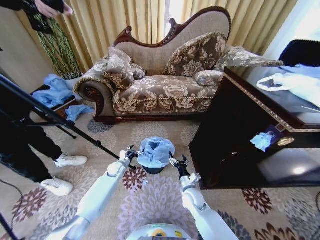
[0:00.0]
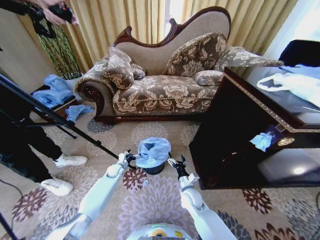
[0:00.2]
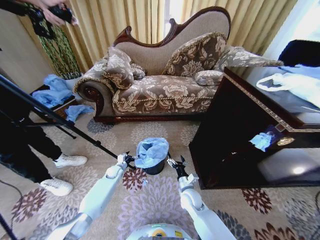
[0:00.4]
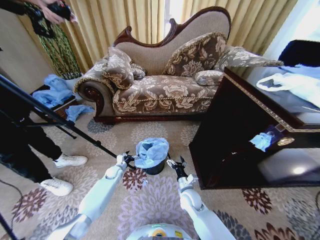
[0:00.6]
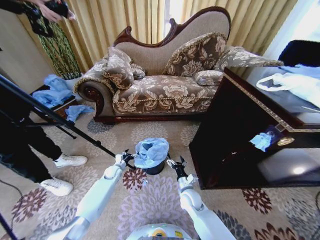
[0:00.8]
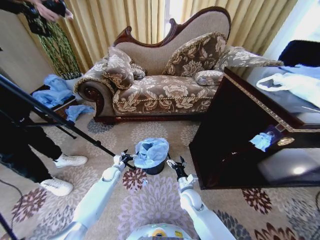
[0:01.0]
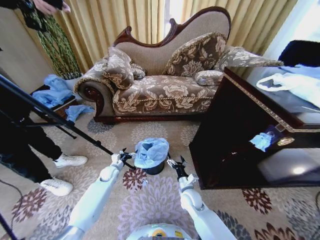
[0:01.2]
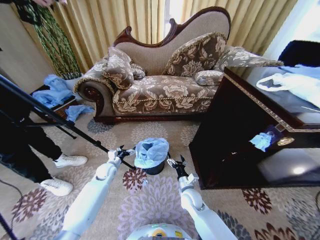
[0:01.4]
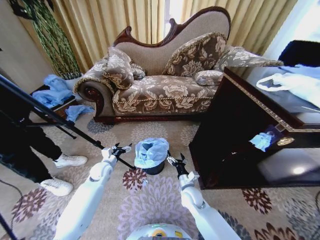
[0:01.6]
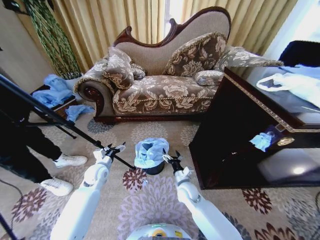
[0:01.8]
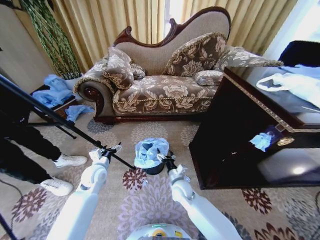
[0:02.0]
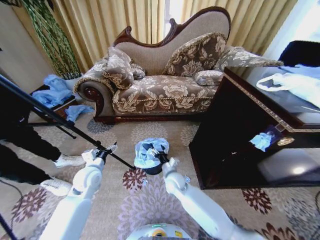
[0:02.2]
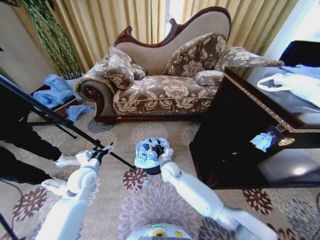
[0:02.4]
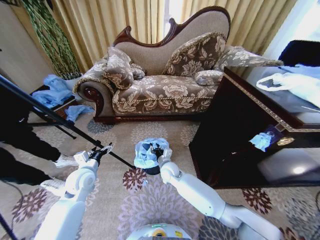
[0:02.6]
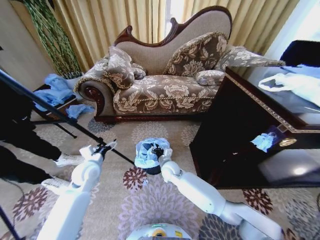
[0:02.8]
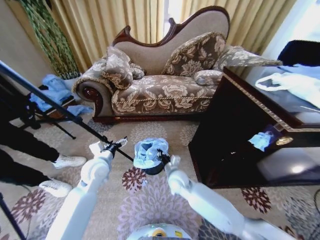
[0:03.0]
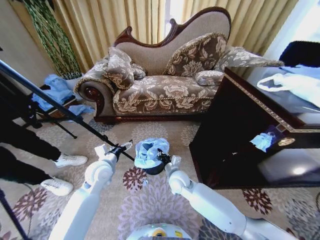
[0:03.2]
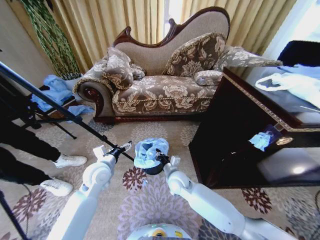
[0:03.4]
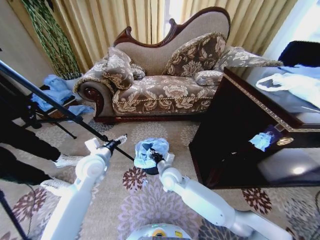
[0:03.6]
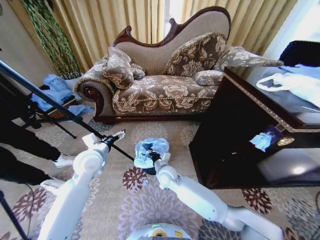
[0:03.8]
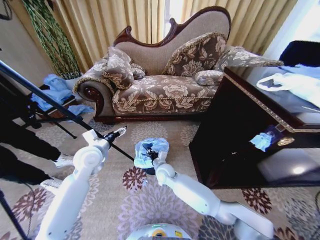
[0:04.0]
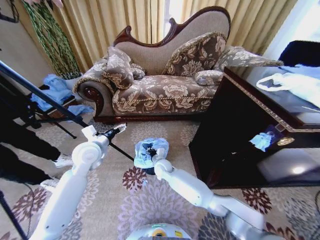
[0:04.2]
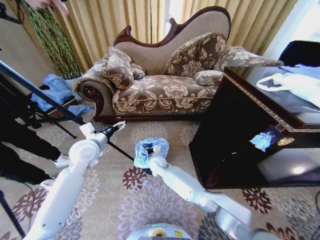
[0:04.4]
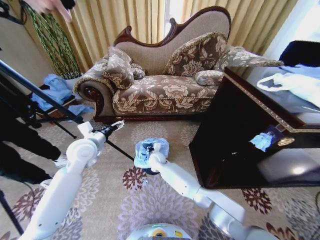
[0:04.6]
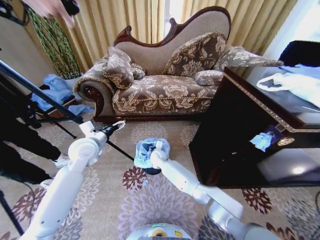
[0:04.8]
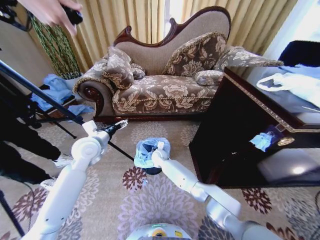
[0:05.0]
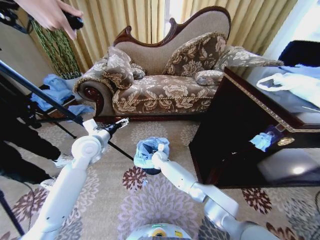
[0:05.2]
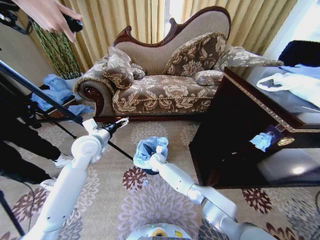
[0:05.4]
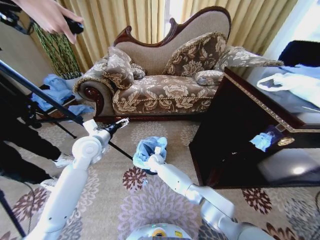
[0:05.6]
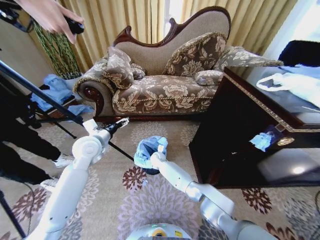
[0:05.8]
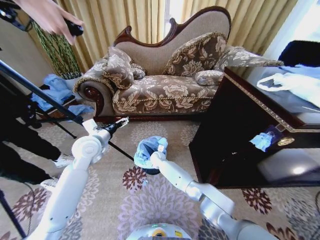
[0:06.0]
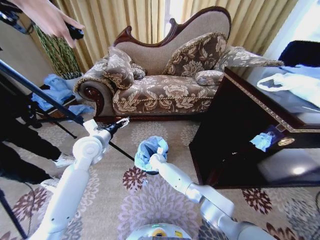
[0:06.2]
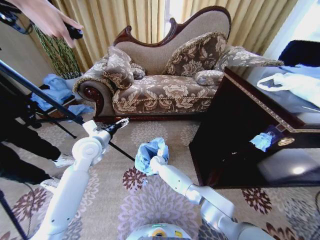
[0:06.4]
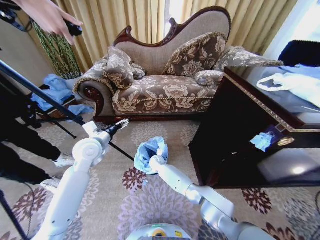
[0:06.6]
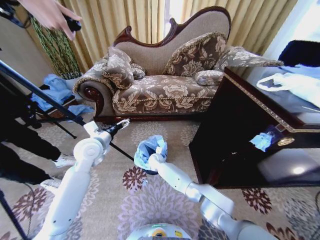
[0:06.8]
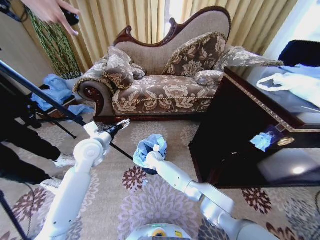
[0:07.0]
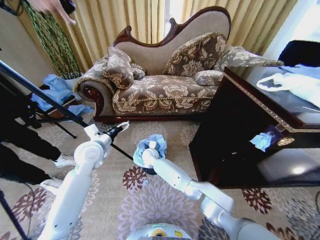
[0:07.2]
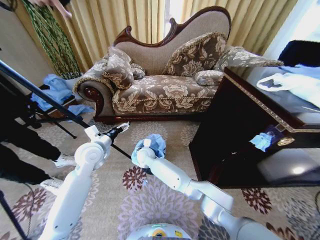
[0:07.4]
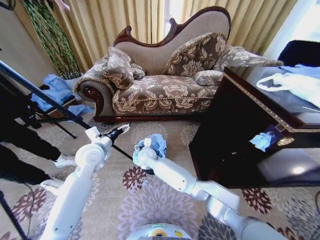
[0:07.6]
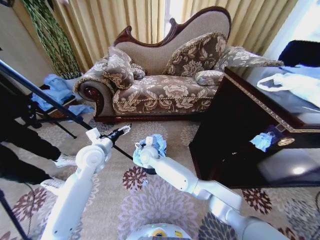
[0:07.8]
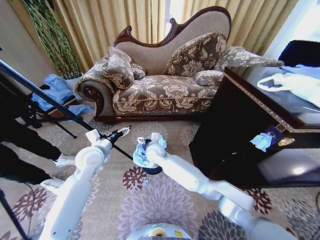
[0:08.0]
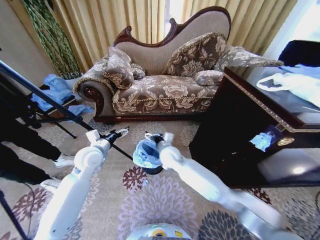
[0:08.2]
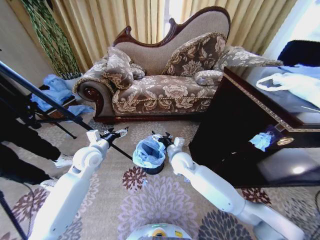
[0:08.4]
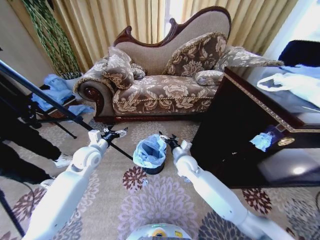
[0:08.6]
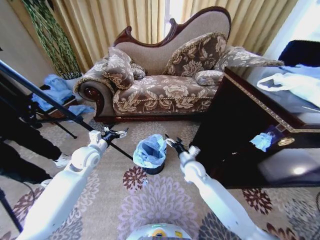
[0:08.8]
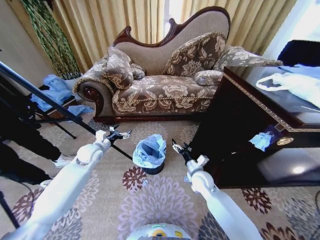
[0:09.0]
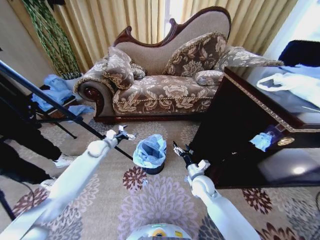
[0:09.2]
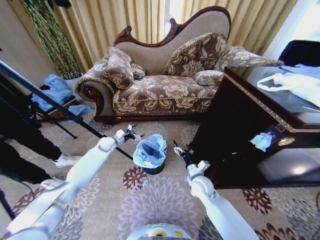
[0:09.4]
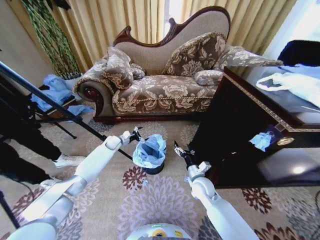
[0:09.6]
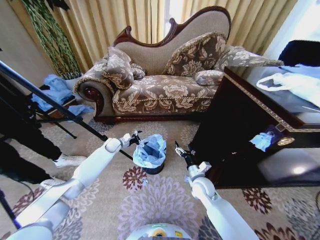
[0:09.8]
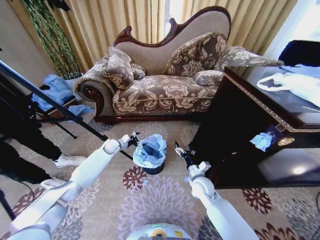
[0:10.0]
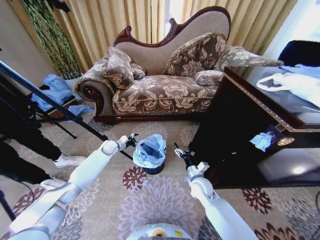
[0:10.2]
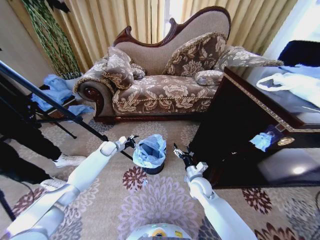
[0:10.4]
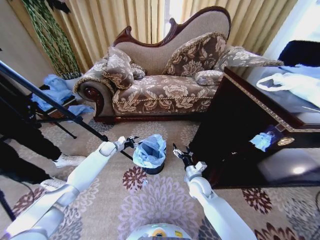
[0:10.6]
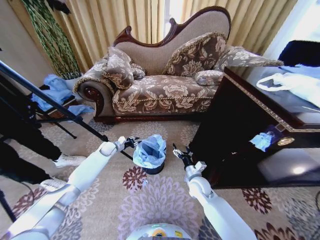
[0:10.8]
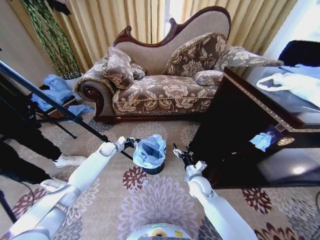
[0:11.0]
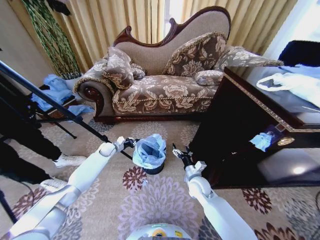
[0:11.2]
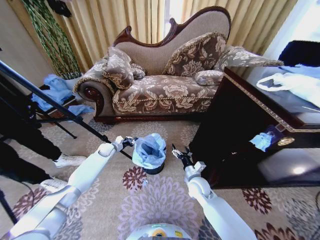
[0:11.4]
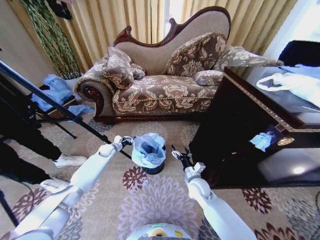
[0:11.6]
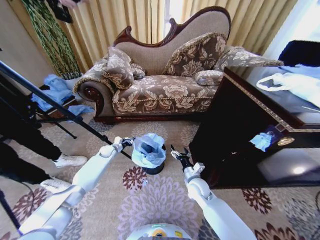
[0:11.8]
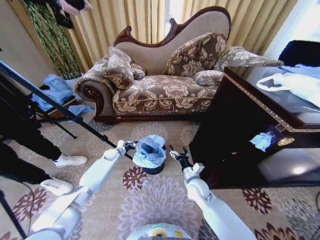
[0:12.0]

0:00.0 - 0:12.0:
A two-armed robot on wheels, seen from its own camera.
Task of the whole recording: Place a garbage bag over the trash bin.
0:00.0 - 0:01.6: The left gripper moves upward and backward, roughly 10 cm.
0:01.6 - 0:03.0: The left gripper heads upward and backward, covering about 15 cm. The right gripper heads to the left and upward, covering some 10 cm, and closes up.
0:03.0 - 0:04.4: The left gripper goes approximately 10 cm upward; the right gripper goes some 15 cm to the left and forward.
0:04.4 - 0:06.0: The right gripper goes about 5 cm forward.
0:06.0 - 0:07.6: The right gripper shifts approximately 15 cm upward, backward and to the left, and opens its fingers.
0:07.6 - 0:09.0: The right gripper heads to the right, covering roughly 25 cm. The left gripper shifts some 10 cm downward, forward and to the left.
0:09.0 - 0:10.4: The left gripper is displaced forward and downward by some 15 cm.
0:10.4 - 0:12.0: The left gripper moves downward, approximately 10 cm, and closes its fingers.

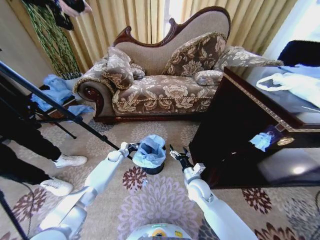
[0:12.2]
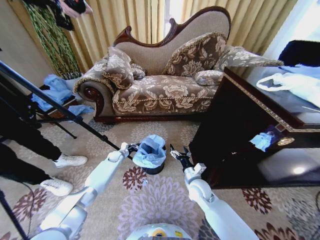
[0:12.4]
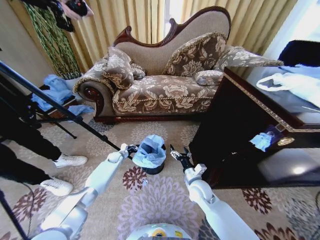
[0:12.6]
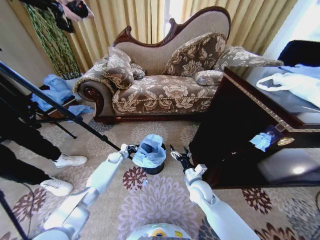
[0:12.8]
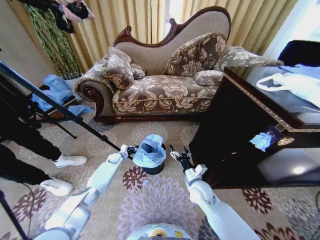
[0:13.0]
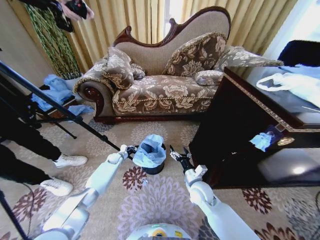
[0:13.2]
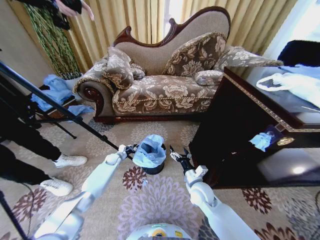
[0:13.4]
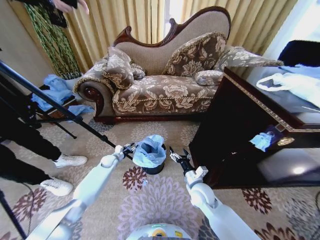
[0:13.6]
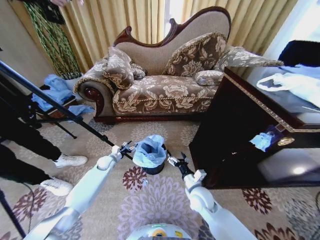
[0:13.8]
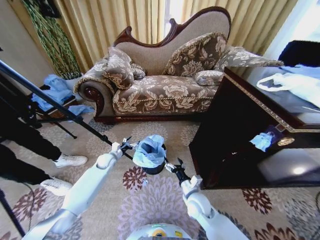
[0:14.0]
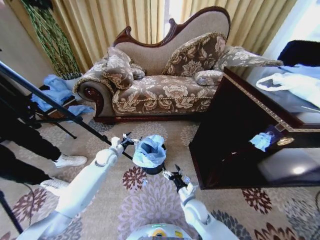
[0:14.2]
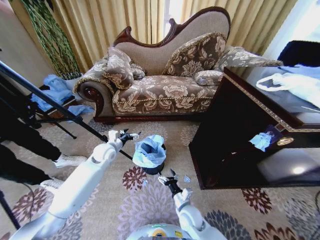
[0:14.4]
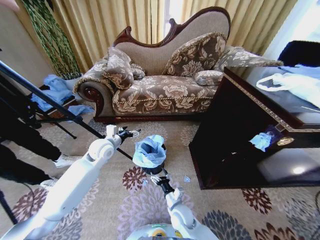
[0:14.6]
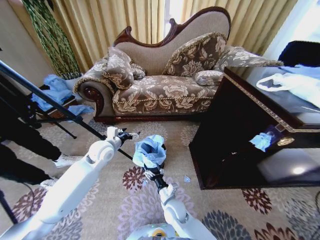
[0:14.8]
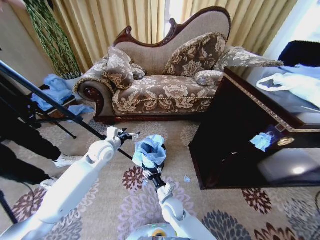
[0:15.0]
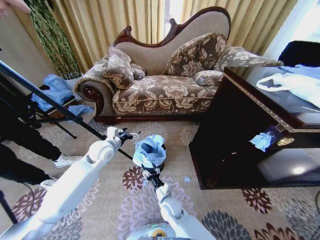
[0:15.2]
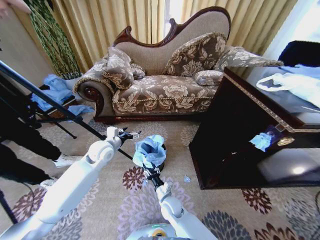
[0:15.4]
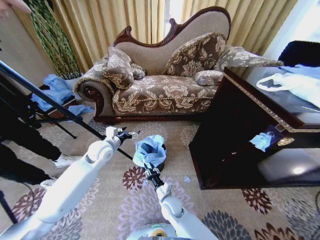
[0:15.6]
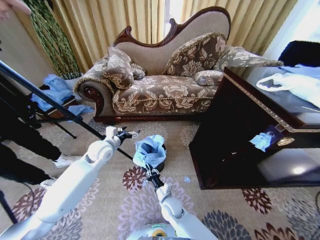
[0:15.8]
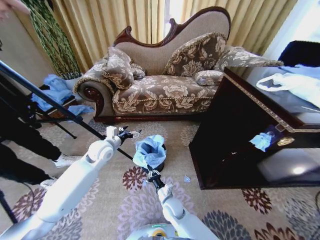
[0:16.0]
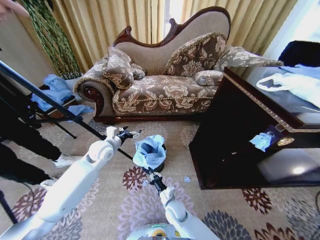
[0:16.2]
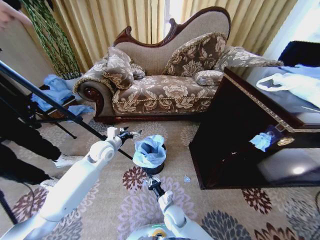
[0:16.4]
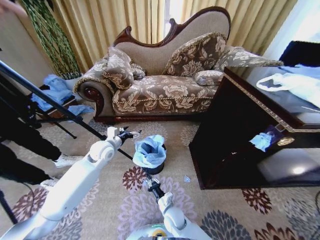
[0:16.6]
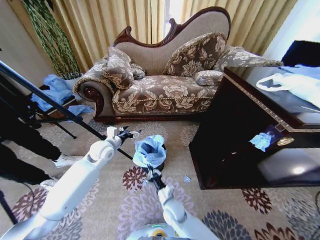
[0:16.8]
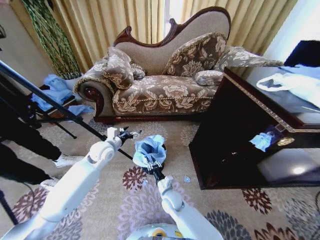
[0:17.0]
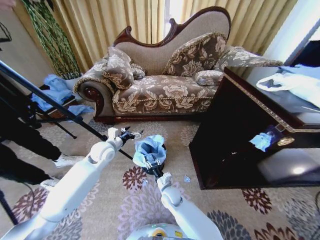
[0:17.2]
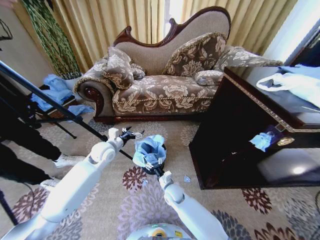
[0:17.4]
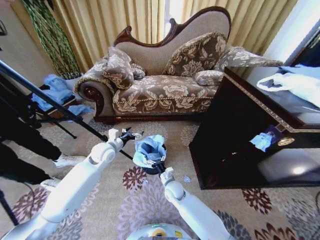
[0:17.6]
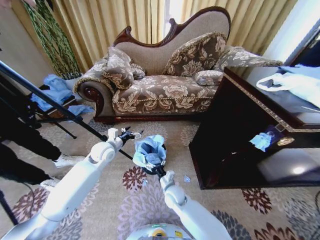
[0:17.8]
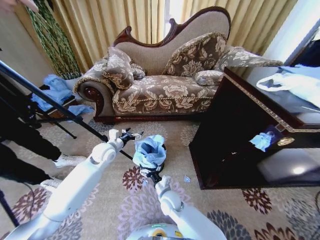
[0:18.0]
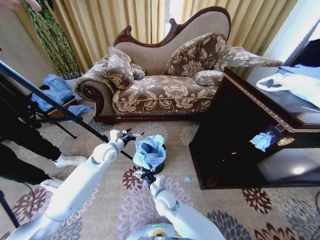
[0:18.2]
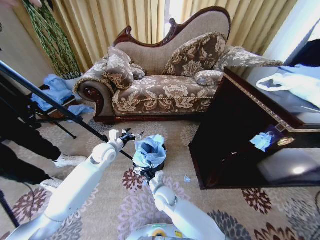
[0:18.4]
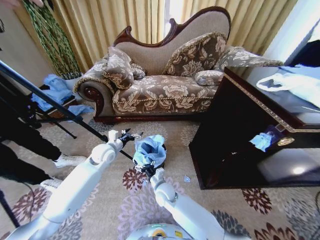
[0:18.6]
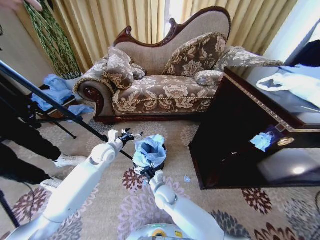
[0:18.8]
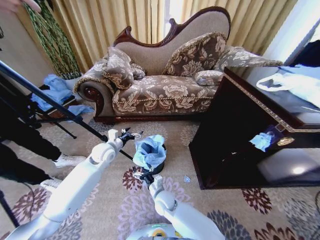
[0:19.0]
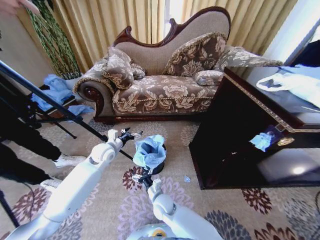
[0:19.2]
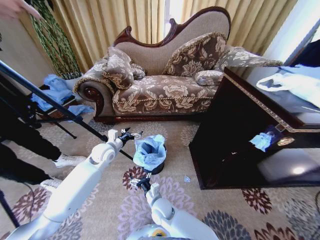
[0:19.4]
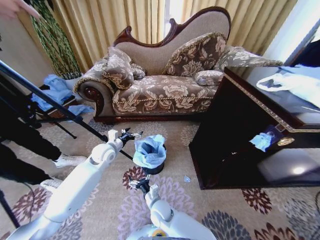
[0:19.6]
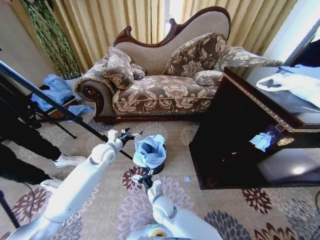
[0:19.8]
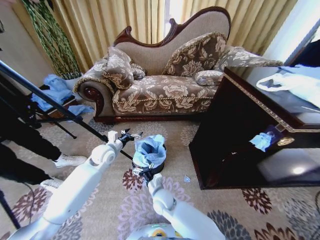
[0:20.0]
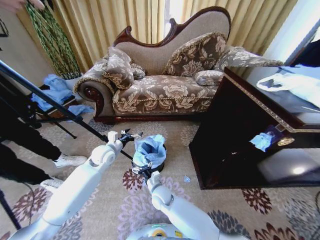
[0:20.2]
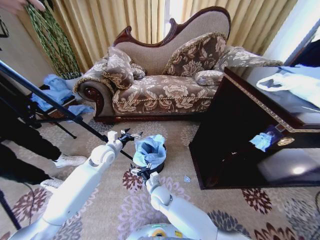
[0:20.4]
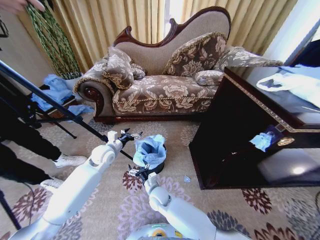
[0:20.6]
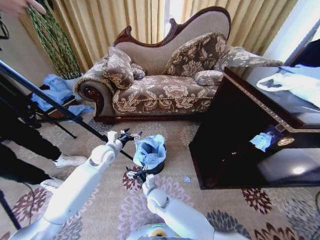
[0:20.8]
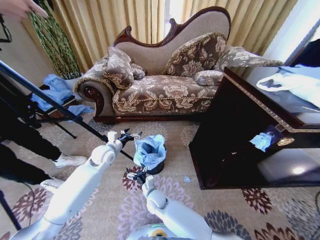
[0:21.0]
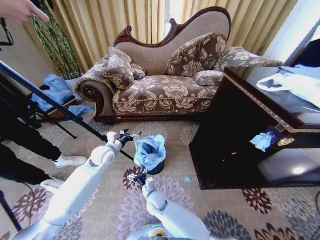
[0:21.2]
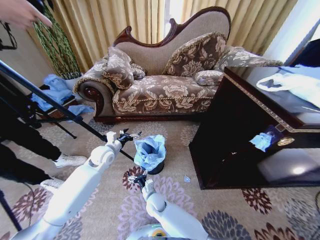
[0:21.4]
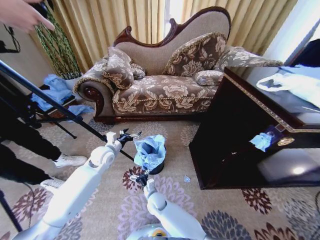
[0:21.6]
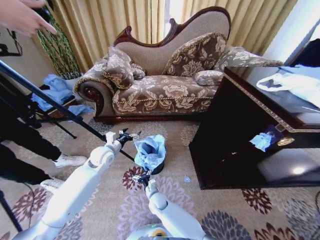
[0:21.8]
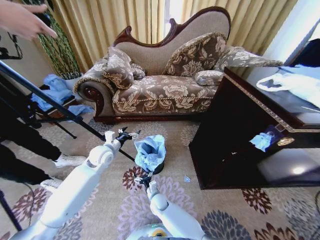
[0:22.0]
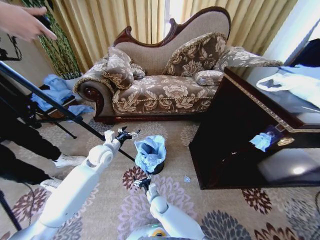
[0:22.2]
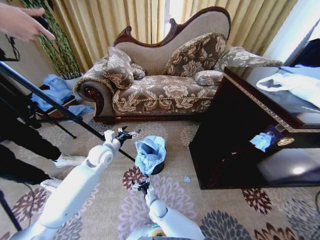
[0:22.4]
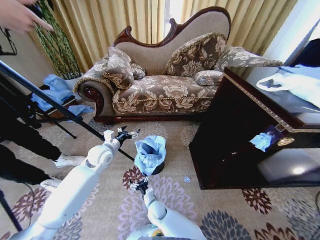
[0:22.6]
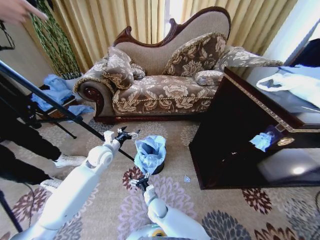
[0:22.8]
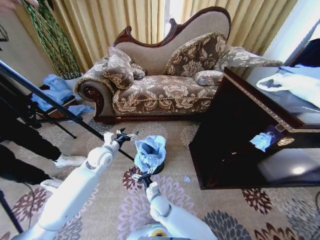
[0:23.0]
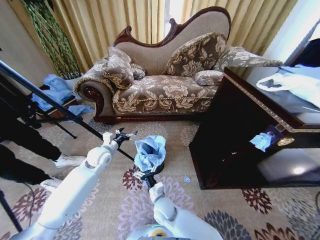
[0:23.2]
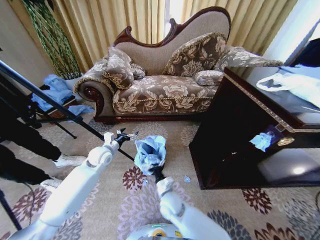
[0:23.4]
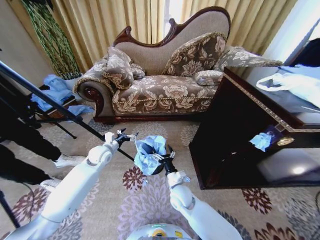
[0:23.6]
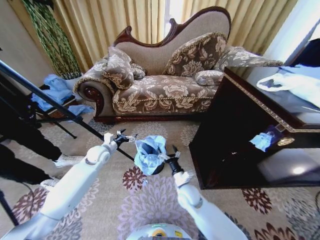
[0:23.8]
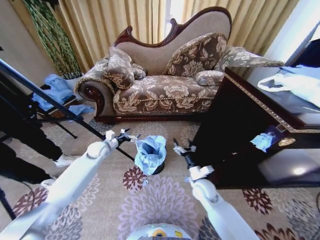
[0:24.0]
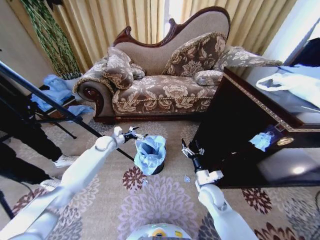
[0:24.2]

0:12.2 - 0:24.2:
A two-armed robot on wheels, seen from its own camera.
Task of the whole recording: Place a garbage bag over the trash bin.
0:12.2 - 0:13.8: The left gripper moves backward, roughly 5 cm, and opens its fingers.
0:13.8 - 0:15.2: The left gripper heads upward, covering approximately 20 cm, and opens its fingers, while the right gripper goes about 15 cm to the left and downward.
0:15.2 - 0:16.6: The right gripper goes roughly 5 cm downward, and closes up.
0:16.6 - 0:18.2: The right gripper is displaced upward by roughly 10 cm, and opens.
0:18.2 - 0:19.8: The grippers stay close to where they were, moving slightly.
0:19.8 - 0:21.2: The right gripper changes place by approximately 5 cm.
0:21.2 - 0:22.6: The right gripper moves downward, about 10 cm.
0:22.6 - 0:24.2: The left gripper heads forward and downward, covering some 15 cm, while the right gripper travels to the right and upward by about 30 cm.
